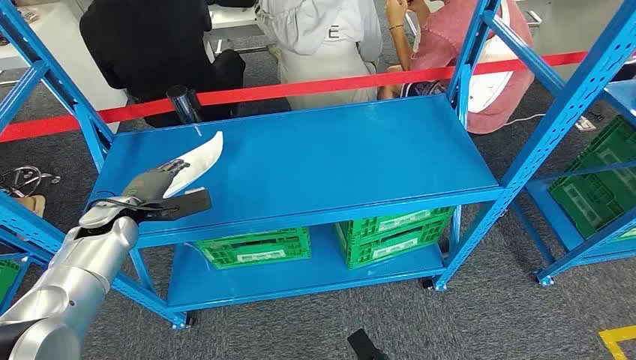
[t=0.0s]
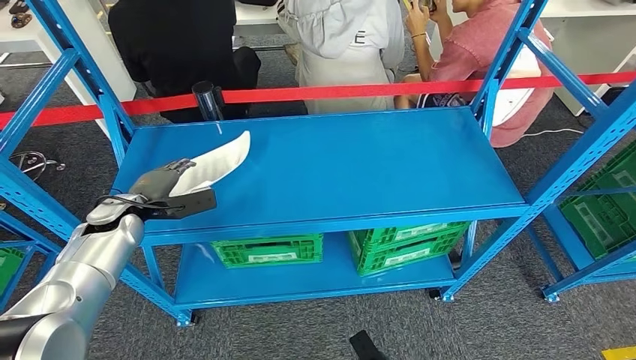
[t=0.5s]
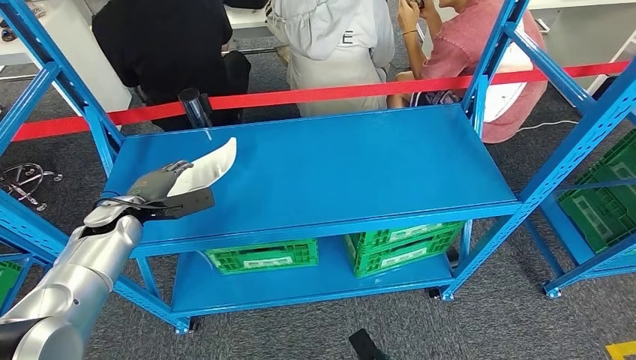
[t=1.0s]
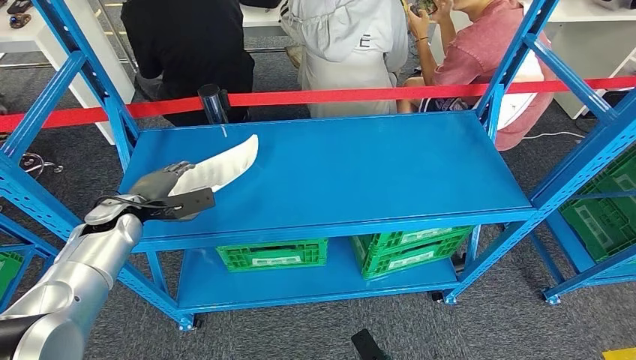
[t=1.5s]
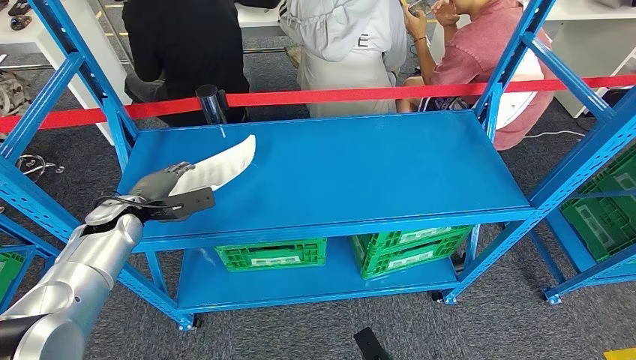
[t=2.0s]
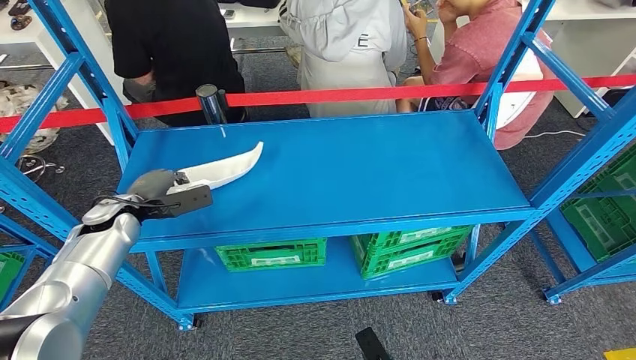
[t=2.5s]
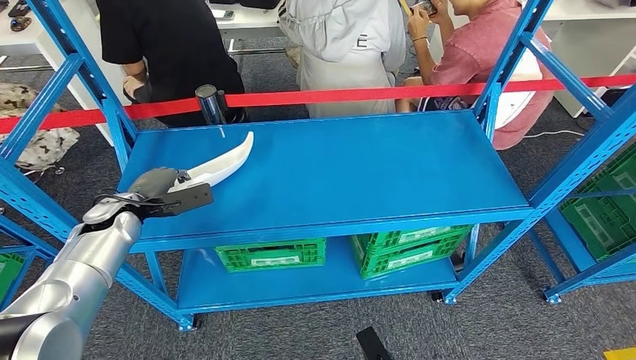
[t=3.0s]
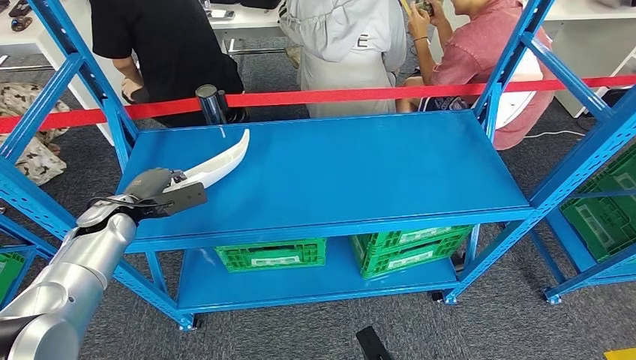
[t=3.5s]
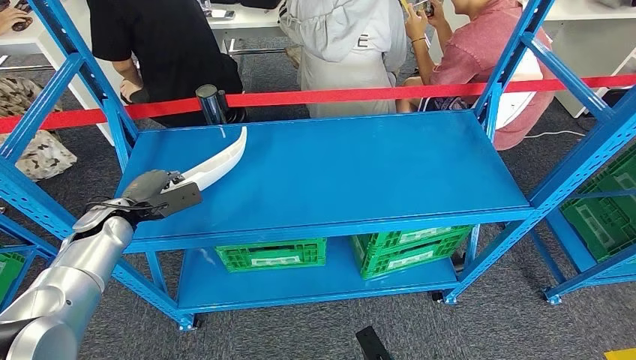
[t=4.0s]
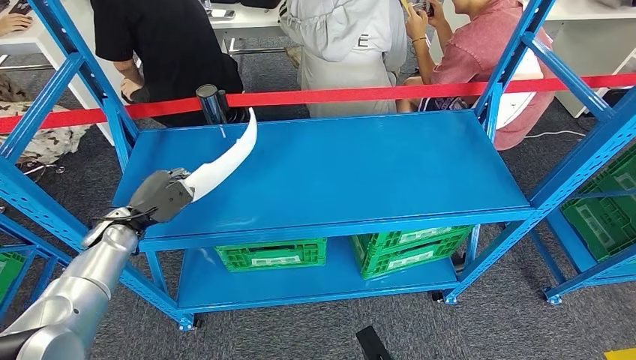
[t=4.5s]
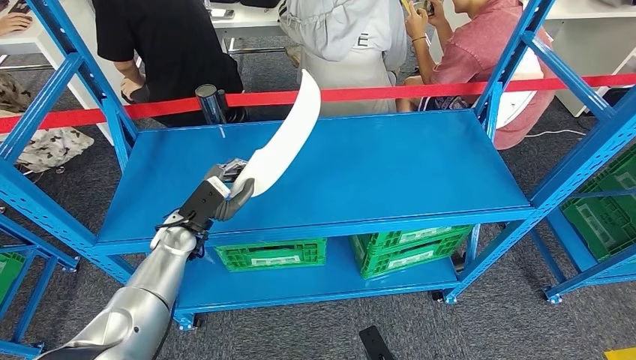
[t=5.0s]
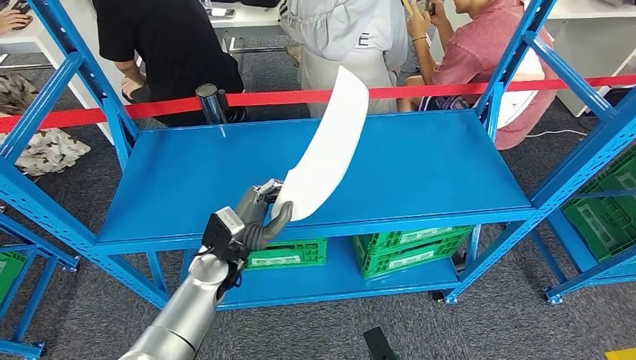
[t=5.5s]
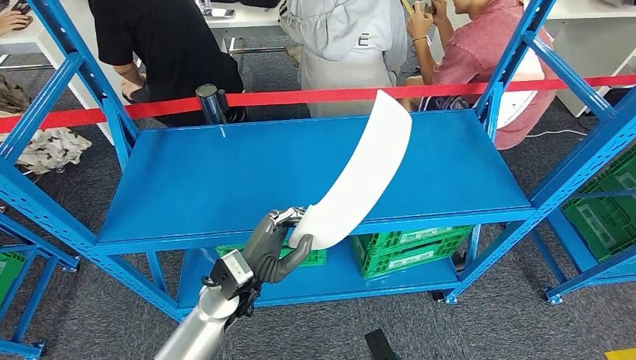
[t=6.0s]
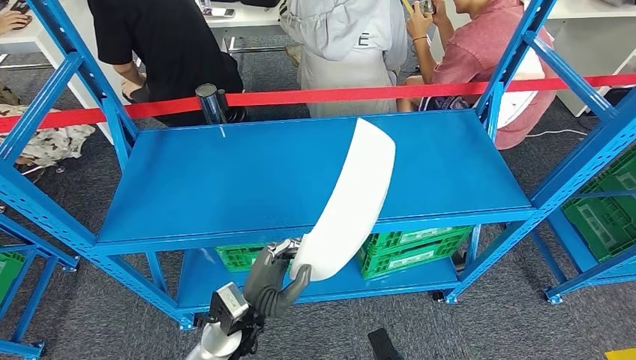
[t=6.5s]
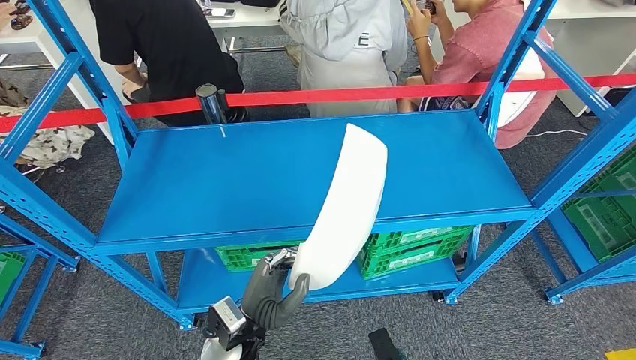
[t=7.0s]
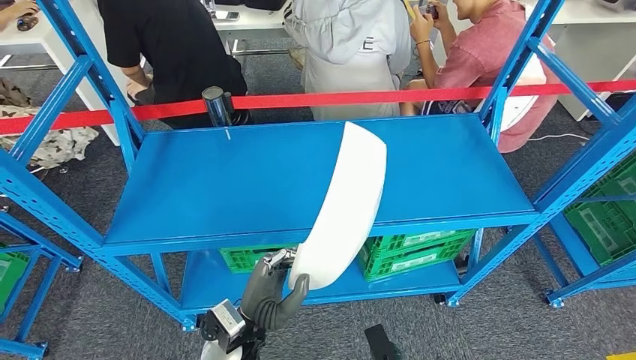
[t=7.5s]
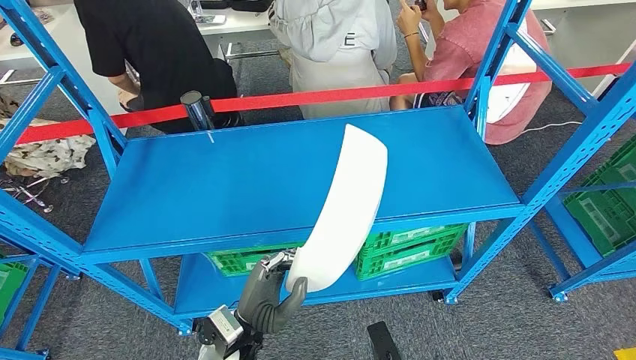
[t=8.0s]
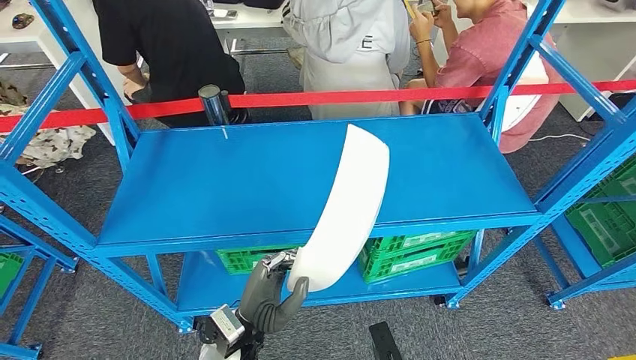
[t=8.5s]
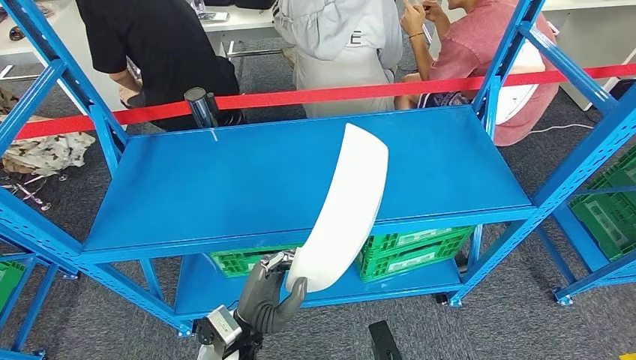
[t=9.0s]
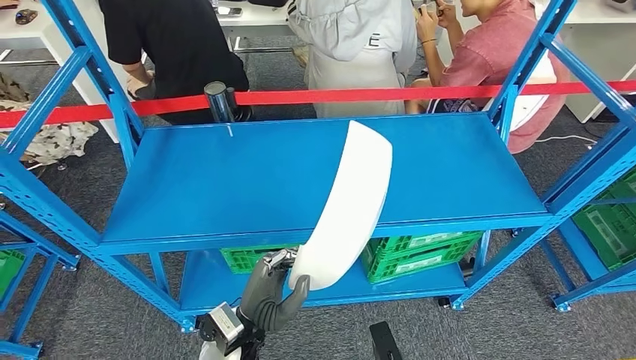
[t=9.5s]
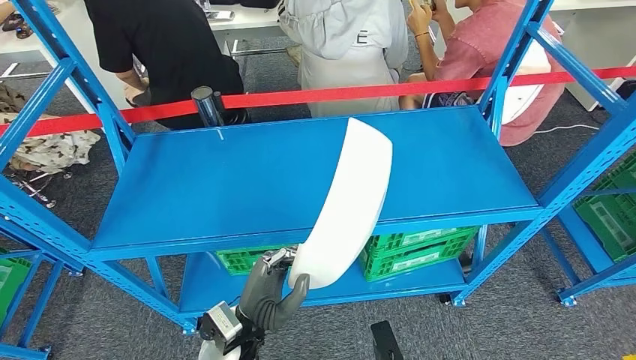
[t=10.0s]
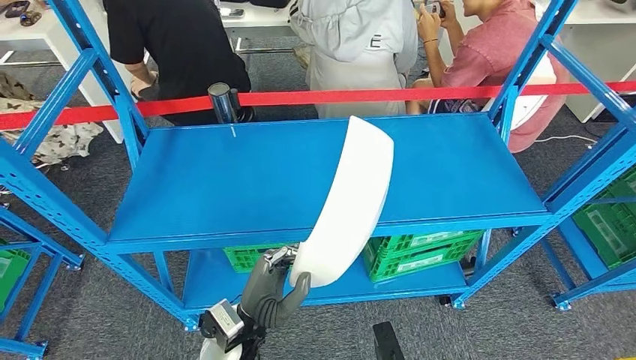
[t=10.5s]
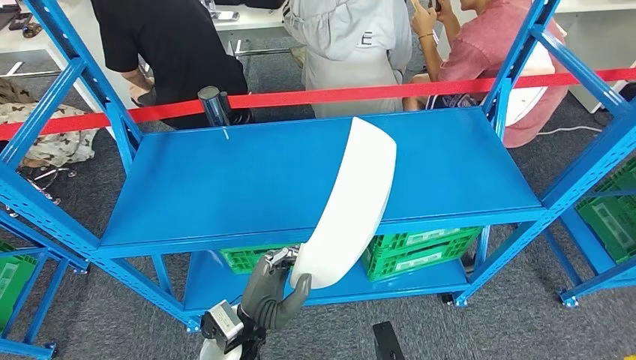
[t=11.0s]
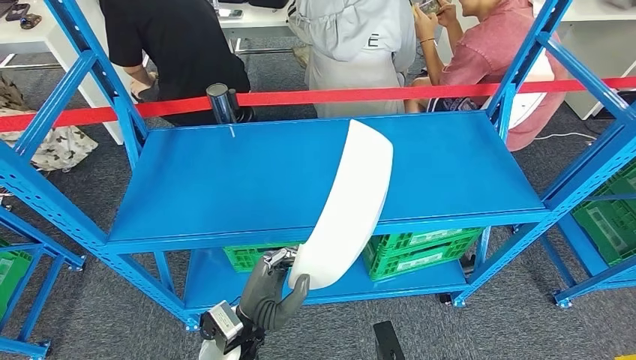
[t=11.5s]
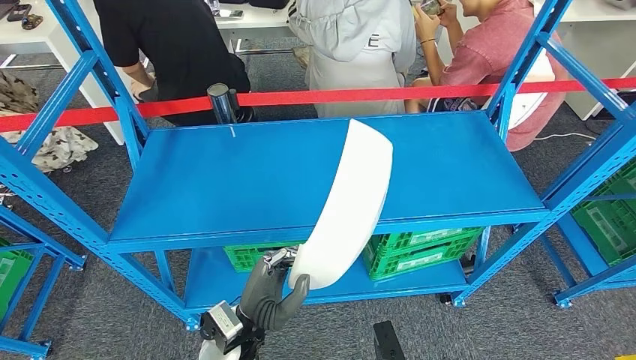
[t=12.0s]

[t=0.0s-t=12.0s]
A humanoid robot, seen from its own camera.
Step, t=0.0s to t=7.5s: Pick up the small component from the shelf.
t=2.0s to t=4.0s: There are only small adjustments of the hands.
t=4.0s to t=6.0s: The left hand moves to the right and backward, approximately 25 cm.

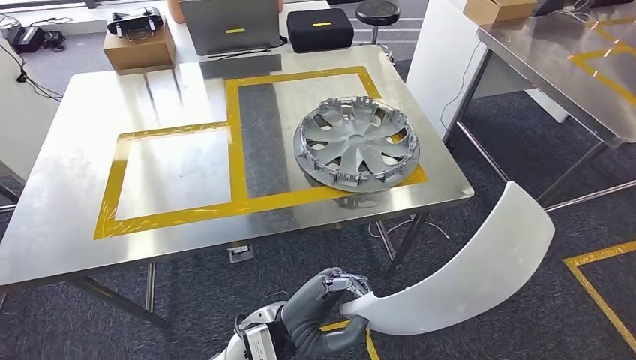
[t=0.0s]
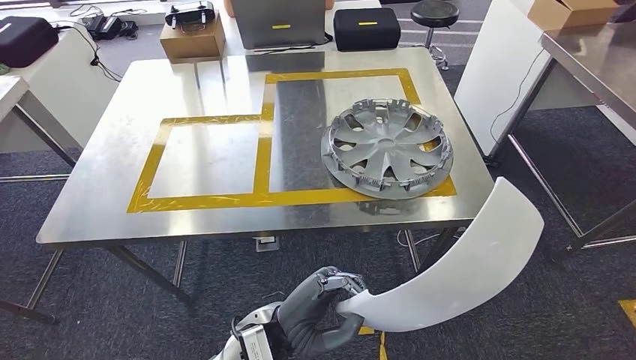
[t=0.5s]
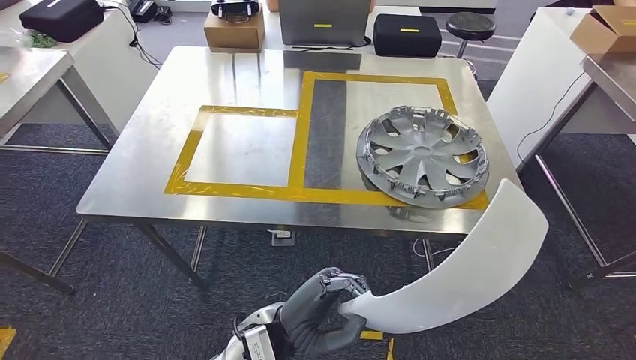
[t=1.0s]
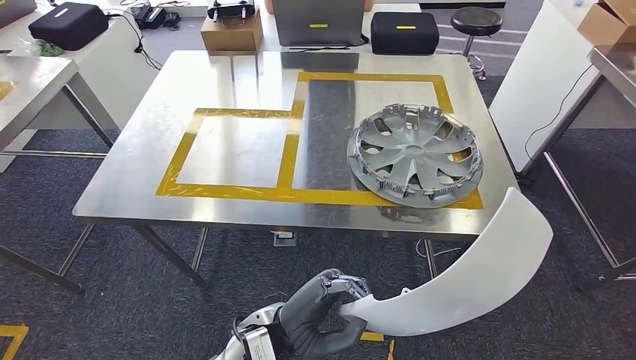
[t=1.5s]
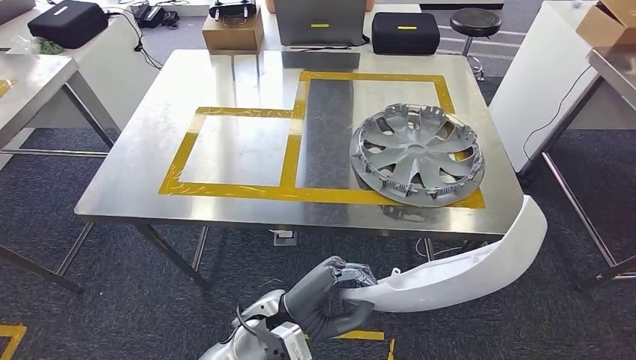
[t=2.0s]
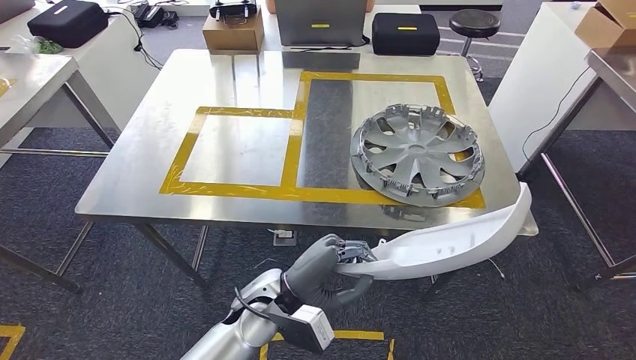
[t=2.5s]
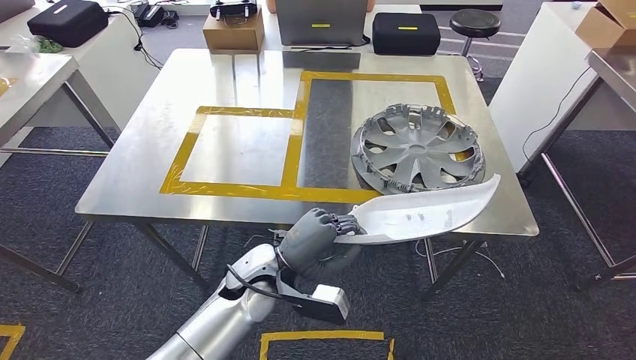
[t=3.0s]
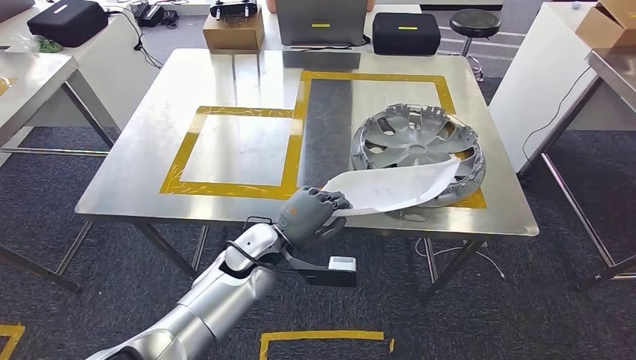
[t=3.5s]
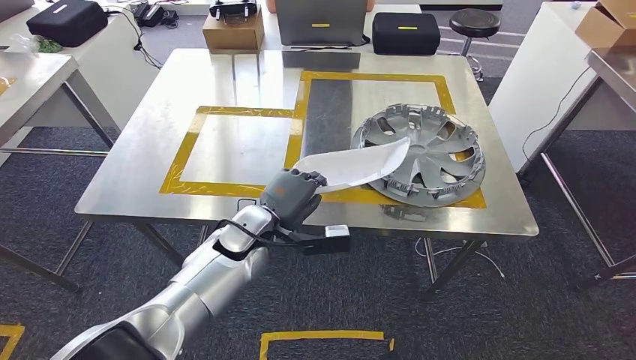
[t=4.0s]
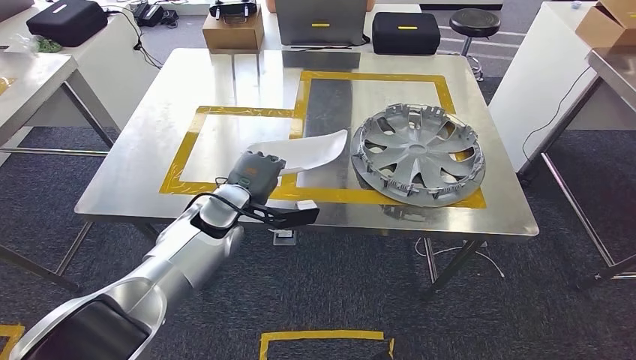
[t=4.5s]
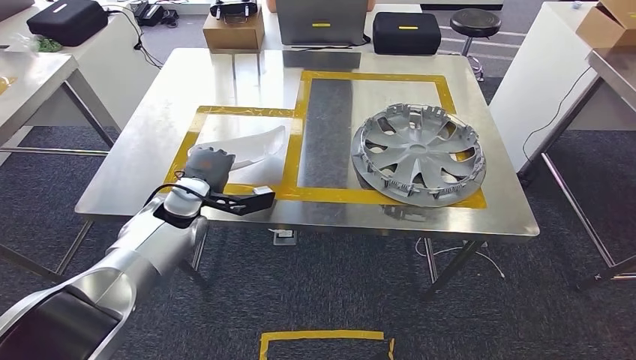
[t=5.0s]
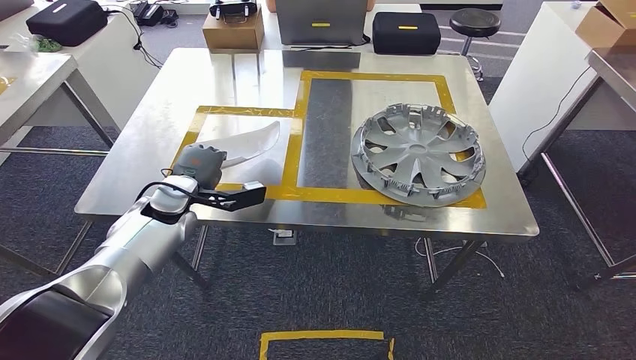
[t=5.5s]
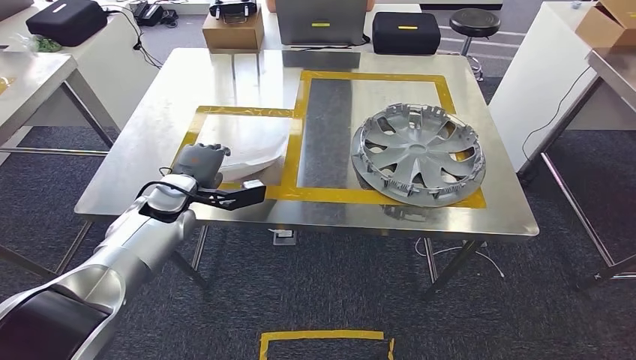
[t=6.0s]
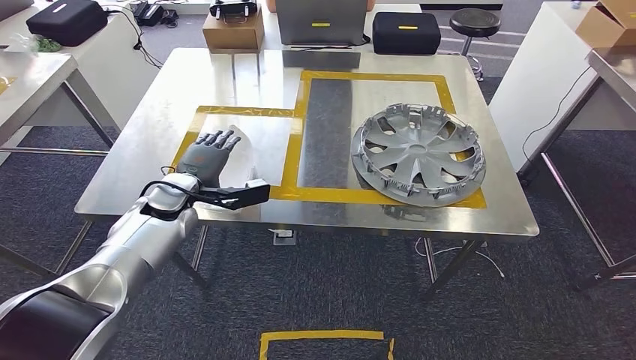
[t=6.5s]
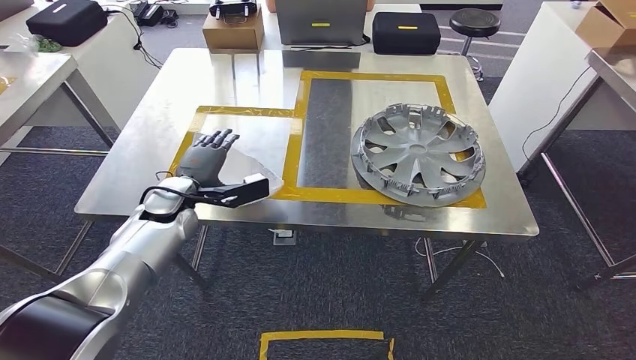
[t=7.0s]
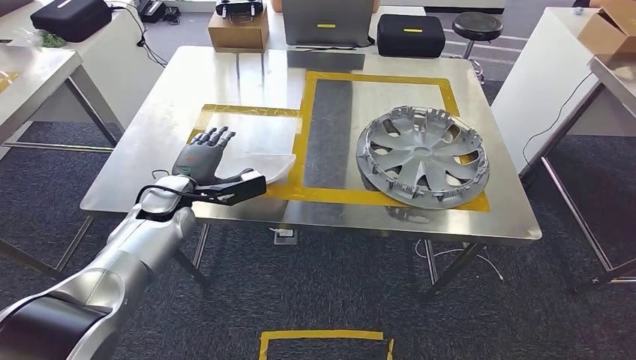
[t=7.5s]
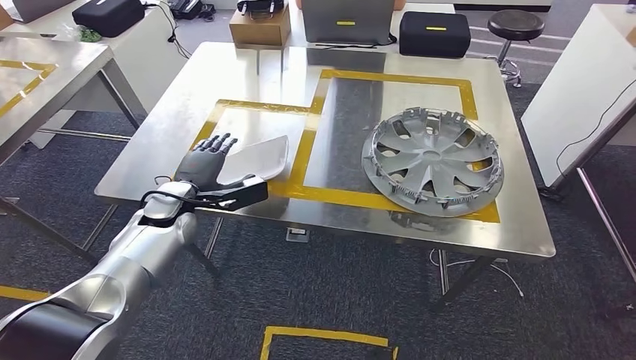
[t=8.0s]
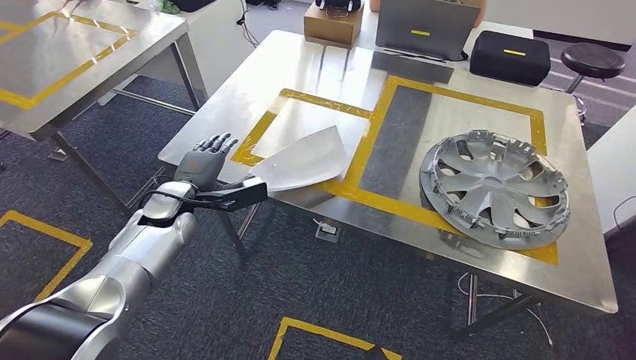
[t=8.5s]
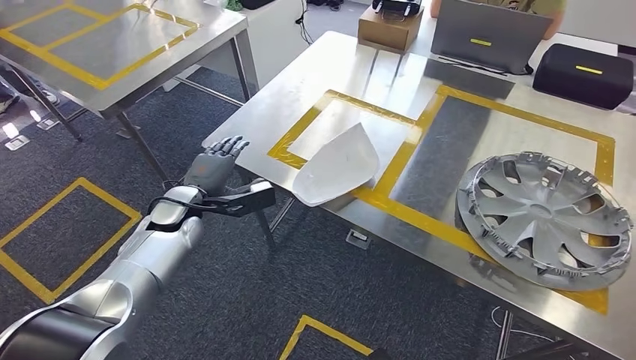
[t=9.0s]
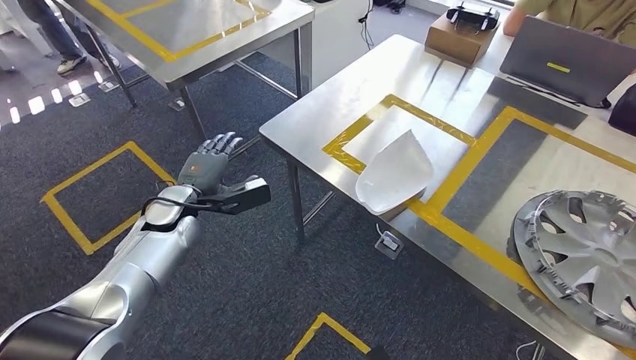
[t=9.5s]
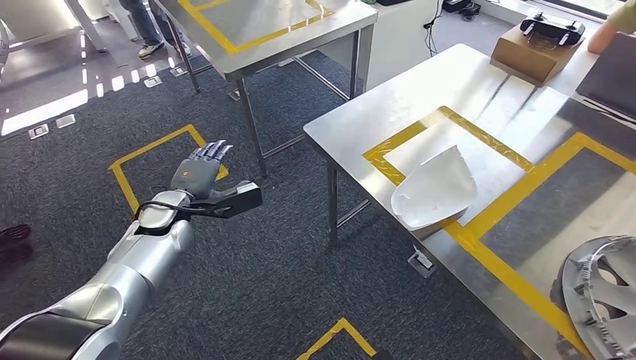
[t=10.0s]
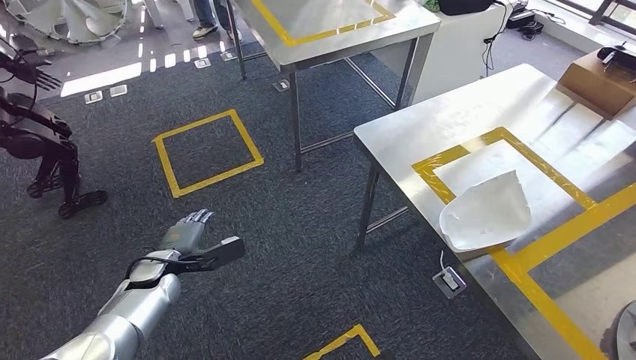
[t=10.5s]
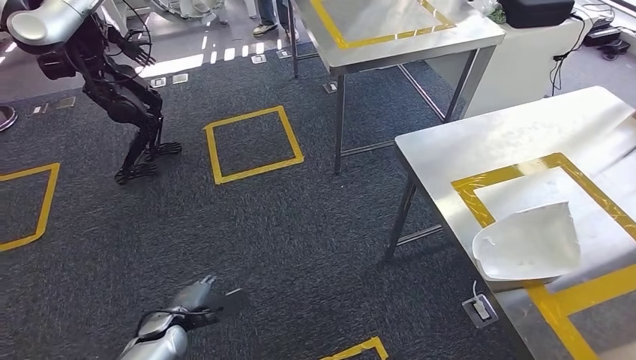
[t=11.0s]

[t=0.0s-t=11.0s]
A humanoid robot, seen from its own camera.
Step, t=0.0s to t=2.0s: Move the small component to the workbench.
Step, t=2.5s to t=7.5s: Insert the small component into the corresponding slot on the workbench.
t=2.0s to t=3.5s: The left hand moves forward, about 10 cm.
t=3.5s to t=5.5s: The left hand is displaced to the left and forward by some 15 cm.
t=5.5s to t=7.5s: The hands stay close to where they were, moving slightly.
